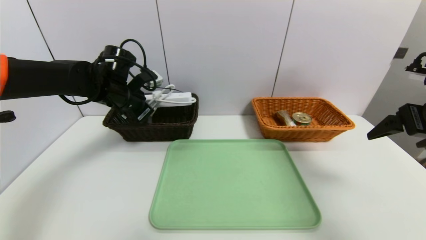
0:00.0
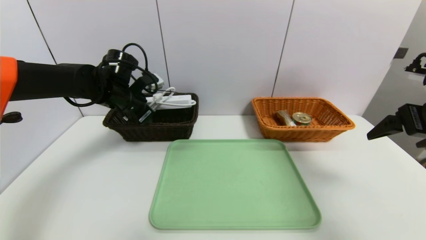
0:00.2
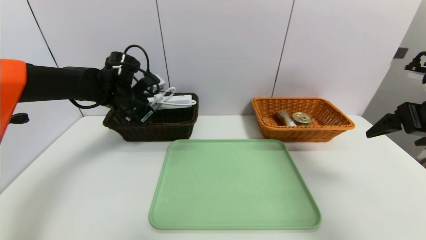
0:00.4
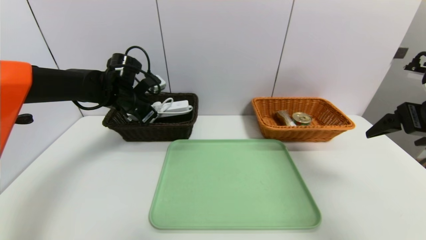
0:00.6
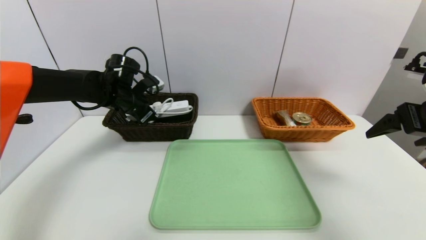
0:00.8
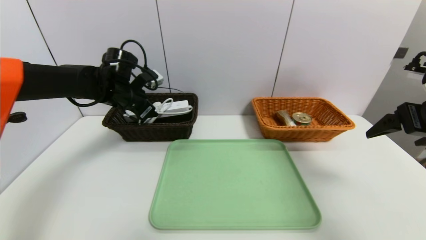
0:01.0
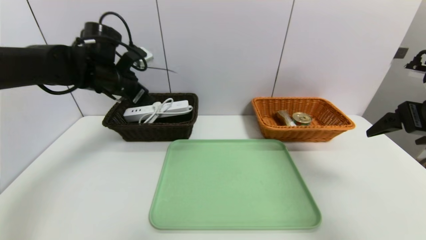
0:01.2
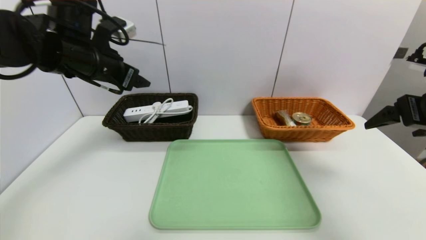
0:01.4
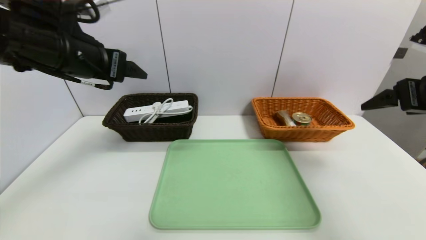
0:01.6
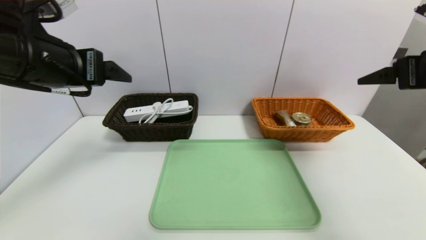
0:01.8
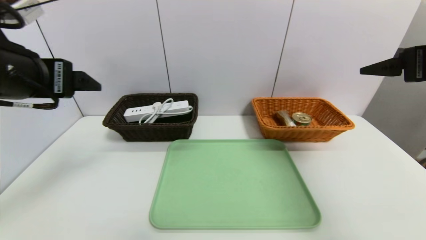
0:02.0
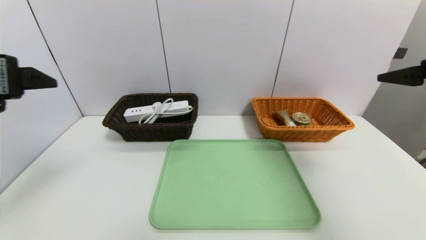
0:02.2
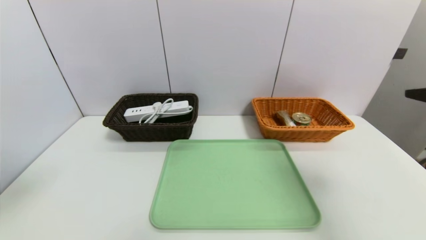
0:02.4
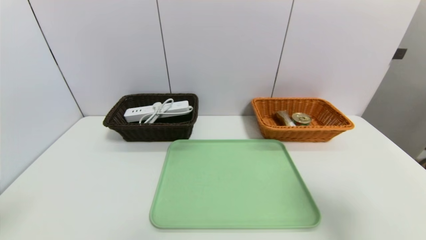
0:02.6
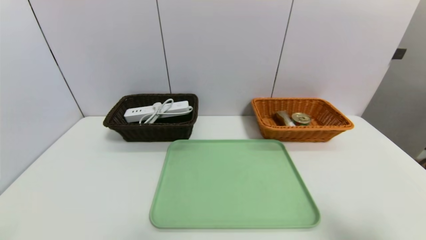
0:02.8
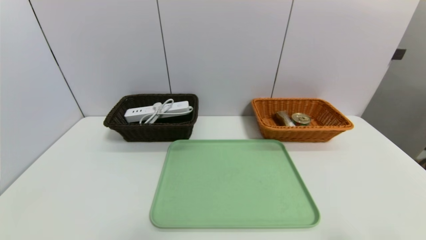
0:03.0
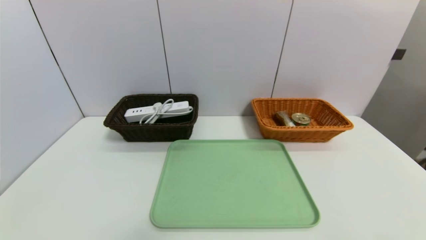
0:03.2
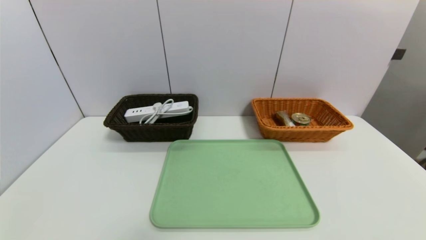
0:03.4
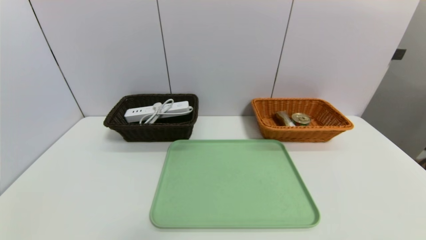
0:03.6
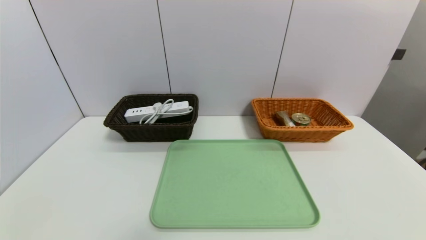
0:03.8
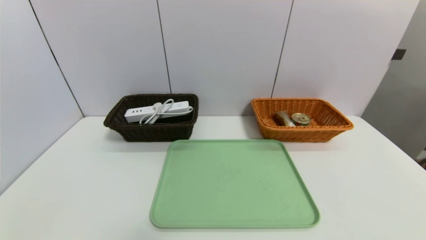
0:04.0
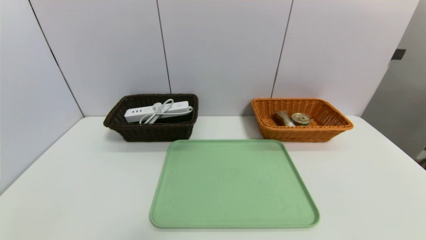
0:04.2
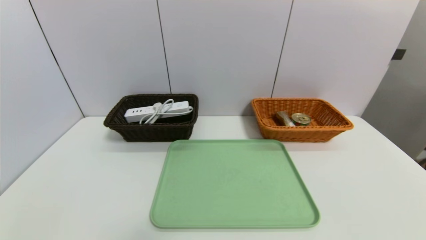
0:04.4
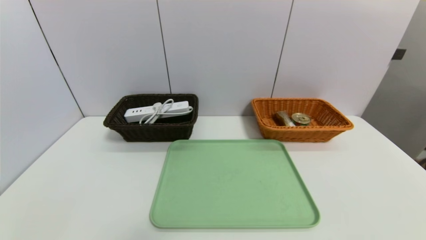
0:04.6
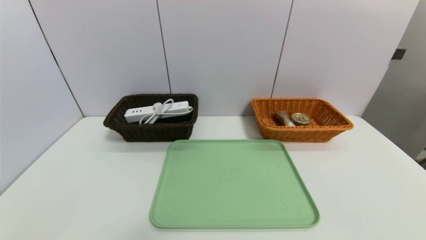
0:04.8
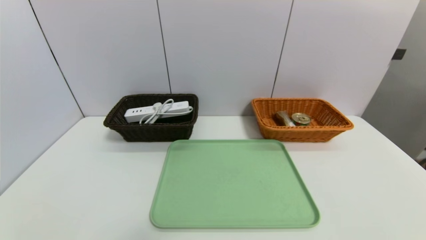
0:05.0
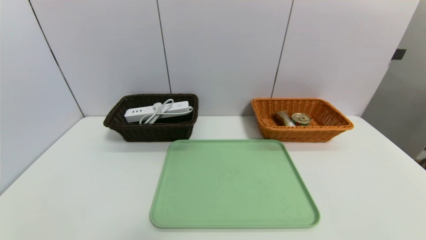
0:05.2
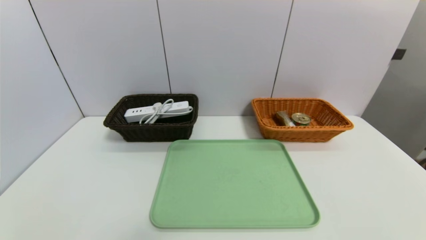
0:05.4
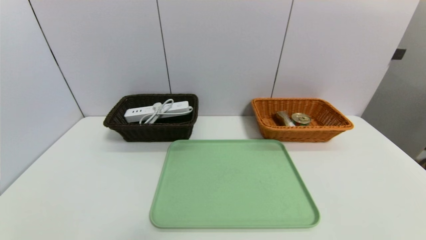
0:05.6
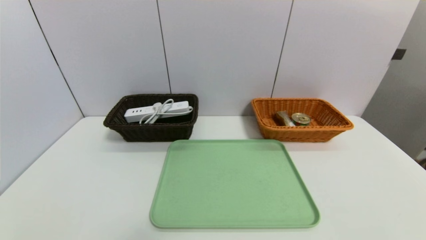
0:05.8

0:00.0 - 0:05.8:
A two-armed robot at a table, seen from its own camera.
Task of the whole recording: place the food in the right basket with the right gripper, and place the non food items in the left basket with the left gripper.
0:00.0 - 0:01.4: The left gripper goes about 10 cm upward and backward, and opens up.
0:01.4 - 0:02.8: The left gripper goes approximately 35 cm backward. The right gripper heads backward, covering approximately 20 cm.
0:02.8 - 0:04.4: The right gripper moves downward and backward, some 15 cm.
